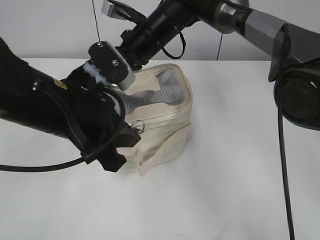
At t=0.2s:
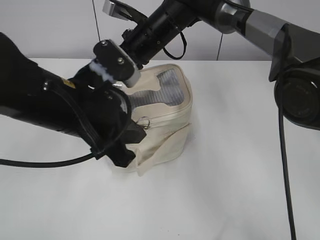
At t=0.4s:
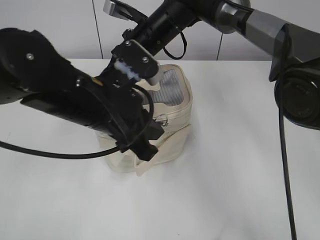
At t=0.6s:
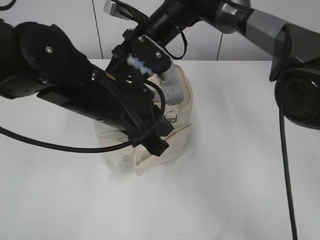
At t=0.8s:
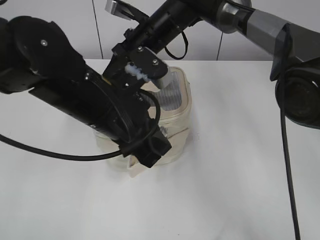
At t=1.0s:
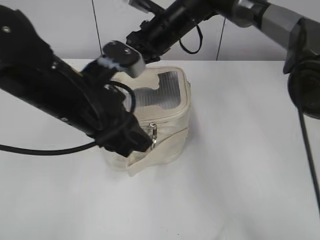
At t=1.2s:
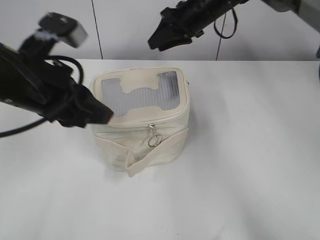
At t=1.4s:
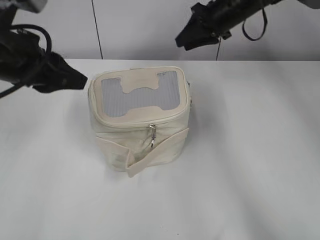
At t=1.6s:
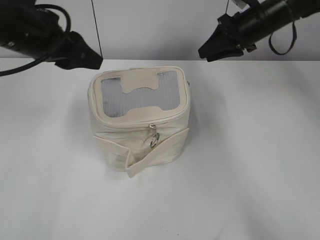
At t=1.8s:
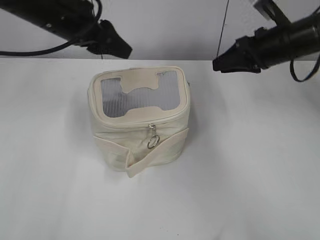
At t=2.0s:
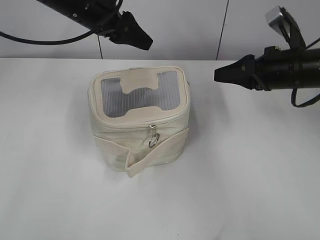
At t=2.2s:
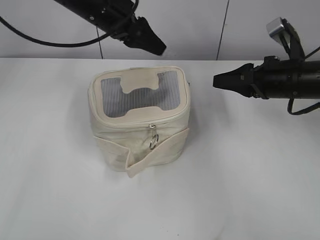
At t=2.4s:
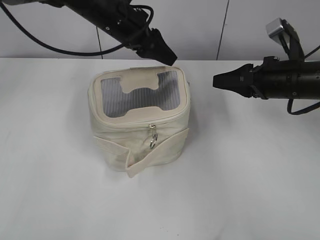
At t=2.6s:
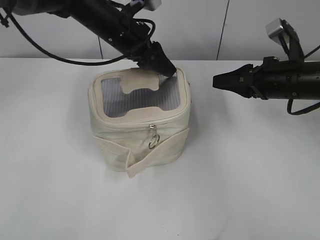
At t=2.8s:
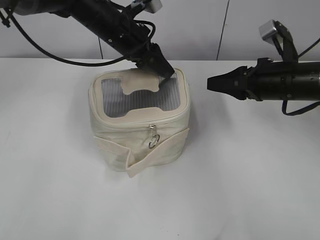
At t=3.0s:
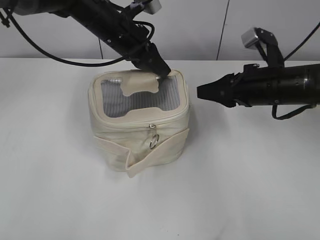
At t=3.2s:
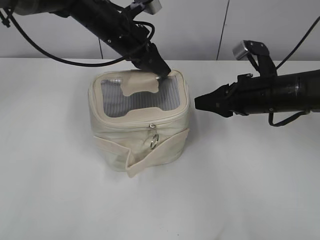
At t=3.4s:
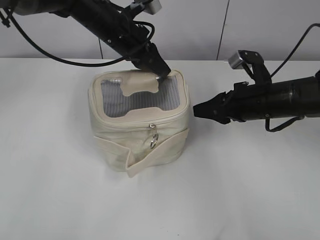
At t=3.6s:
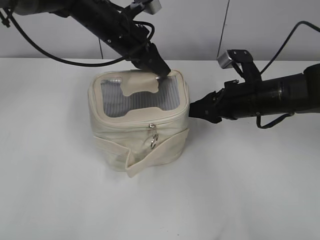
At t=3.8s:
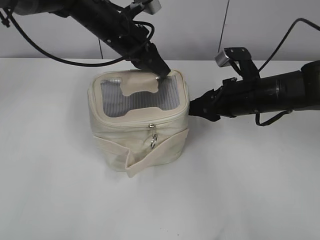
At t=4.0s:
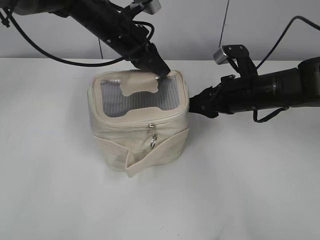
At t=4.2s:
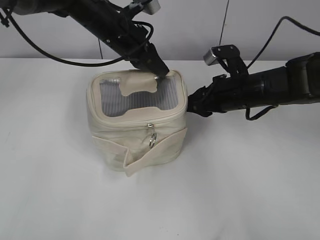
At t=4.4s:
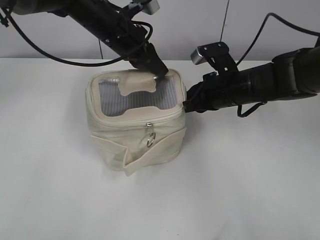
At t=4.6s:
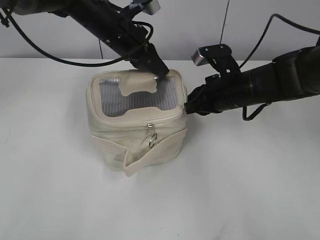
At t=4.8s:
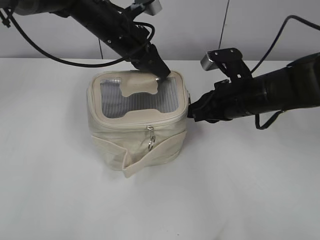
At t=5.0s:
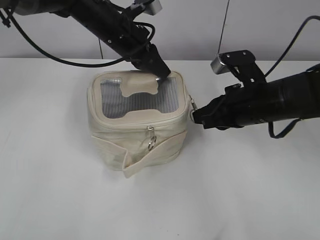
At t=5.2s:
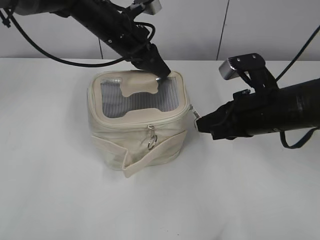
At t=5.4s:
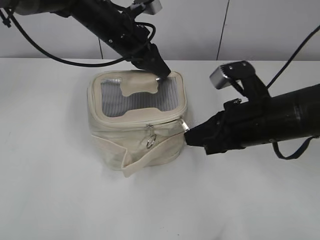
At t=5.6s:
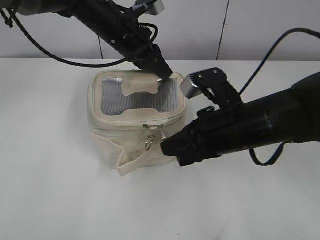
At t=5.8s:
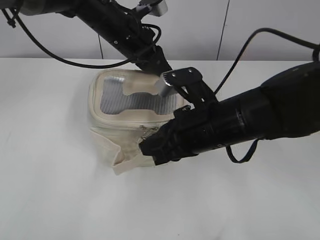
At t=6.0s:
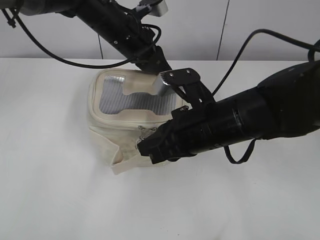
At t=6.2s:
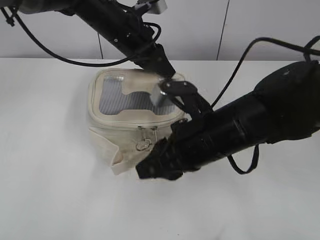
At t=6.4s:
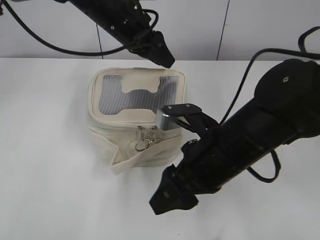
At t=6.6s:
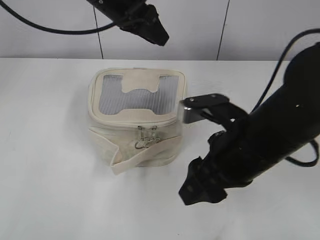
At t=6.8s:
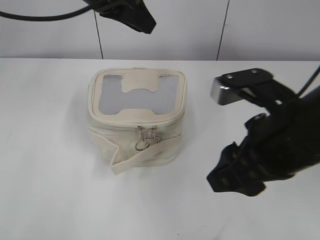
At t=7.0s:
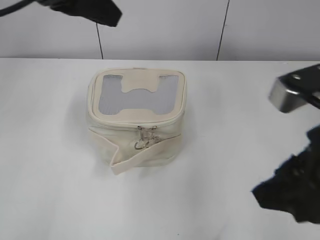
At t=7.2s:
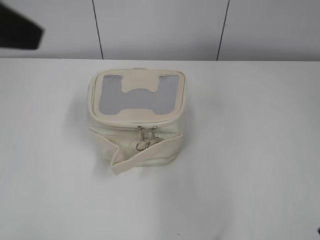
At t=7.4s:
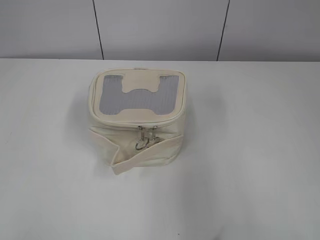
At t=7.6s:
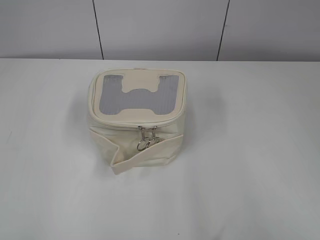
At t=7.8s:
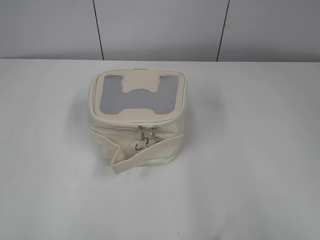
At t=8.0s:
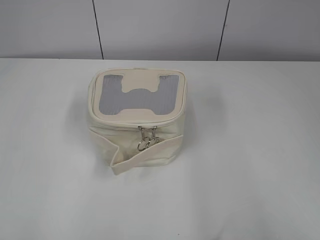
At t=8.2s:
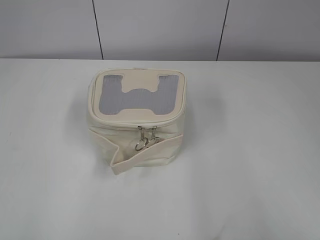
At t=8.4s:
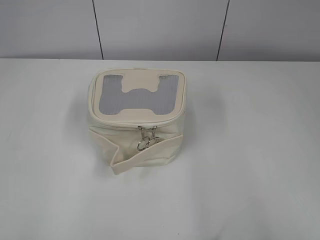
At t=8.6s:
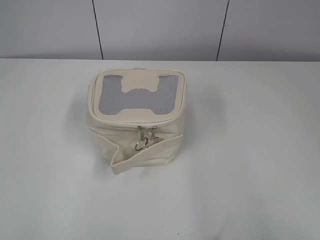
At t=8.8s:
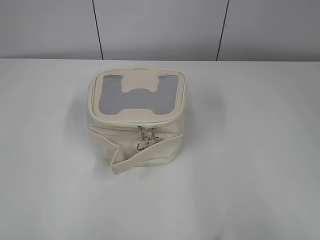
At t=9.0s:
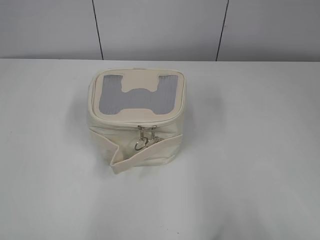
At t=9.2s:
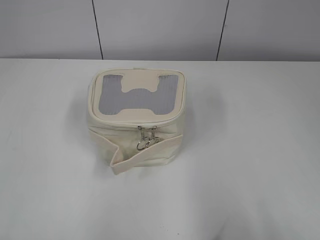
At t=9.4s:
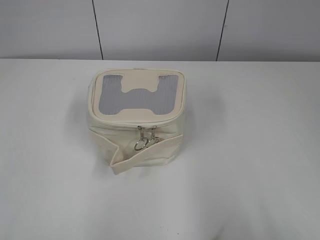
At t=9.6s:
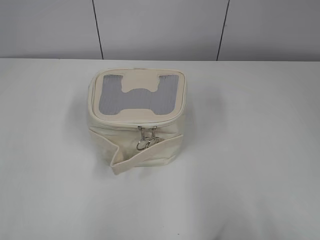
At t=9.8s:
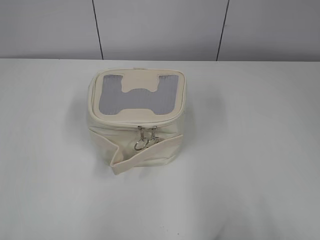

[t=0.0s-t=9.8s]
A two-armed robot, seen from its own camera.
Step, t=1.2s to t=6.0s: Zip up the bag with your right hand.
t=0.0s to t=1.4s: The left gripper goes some 10 cm to the left, and opens up, while the right gripper is displaced to the right and forward by approximately 15 cm, and opens up.
t=1.4s to t=2.8s: The right gripper heads backward and to the right, covering about 20 cm. The left gripper shifts roughly 20 cm forward and to the right.
t=2.8s to t=4.2s: The right gripper is displaced to the left by approximately 5 cm. The left gripper closes its fingers.
t=4.2s to t=5.6s: The right gripper moves backward, roughly 10 cm, and closes.
t=5.6s to t=7.0s: The right gripper moves upward and backward, roughly 10 cm, and opens. The left gripper travels upward, backward and to the left by some 20 cm, and opens.
t=7.0s to t=8.4s: The left gripper shifts approximately 35 cm backward and to the left, while the right gripper travels backward and to the right by approximately 20 cm.

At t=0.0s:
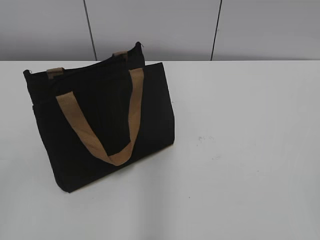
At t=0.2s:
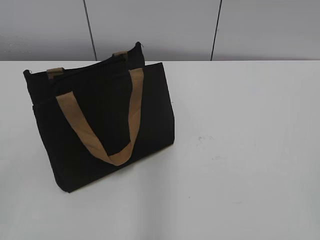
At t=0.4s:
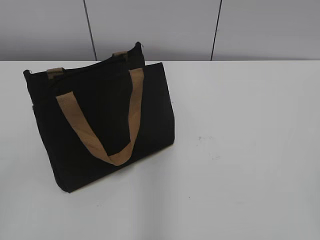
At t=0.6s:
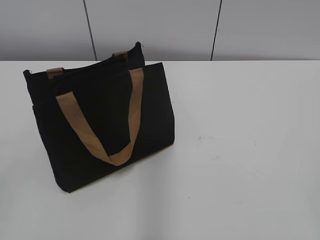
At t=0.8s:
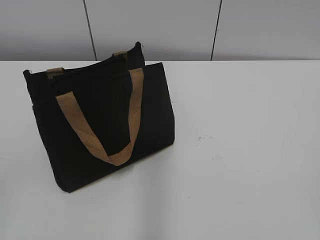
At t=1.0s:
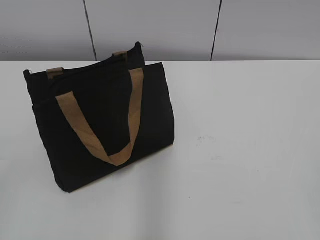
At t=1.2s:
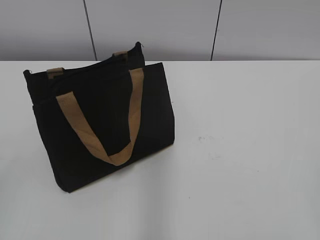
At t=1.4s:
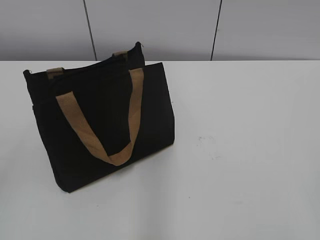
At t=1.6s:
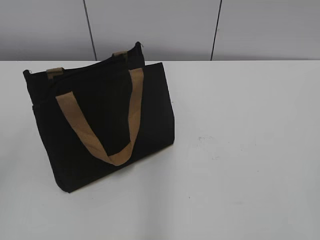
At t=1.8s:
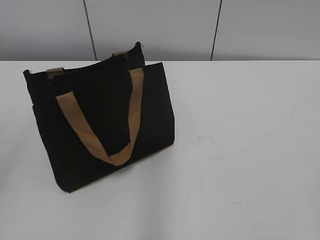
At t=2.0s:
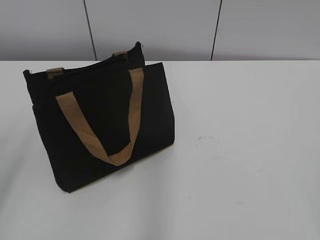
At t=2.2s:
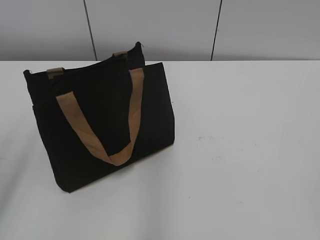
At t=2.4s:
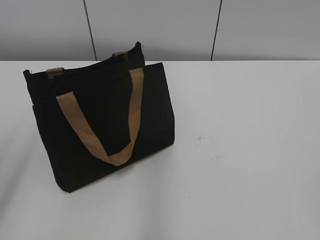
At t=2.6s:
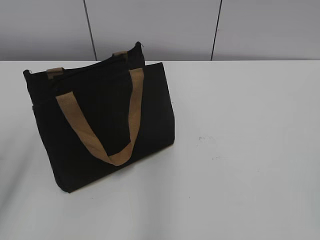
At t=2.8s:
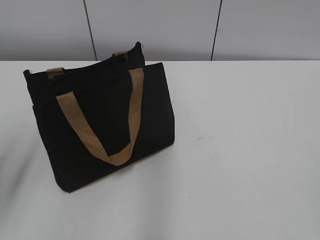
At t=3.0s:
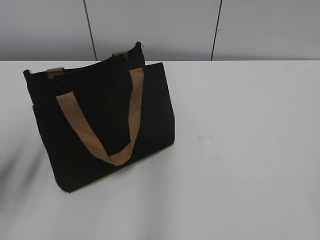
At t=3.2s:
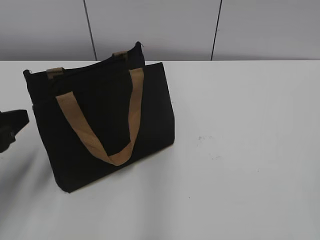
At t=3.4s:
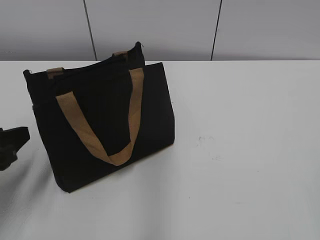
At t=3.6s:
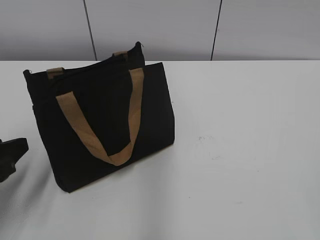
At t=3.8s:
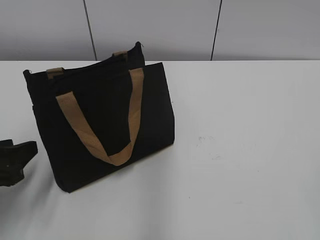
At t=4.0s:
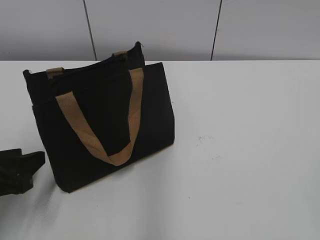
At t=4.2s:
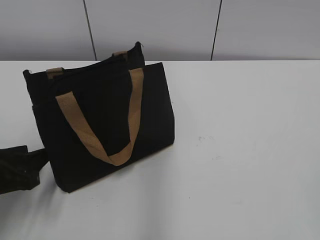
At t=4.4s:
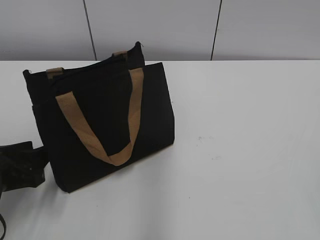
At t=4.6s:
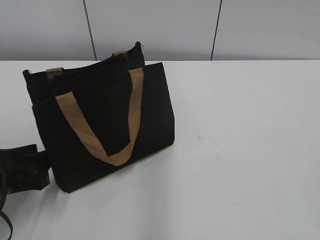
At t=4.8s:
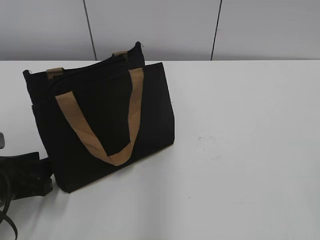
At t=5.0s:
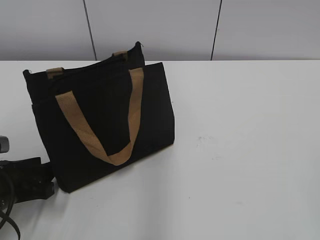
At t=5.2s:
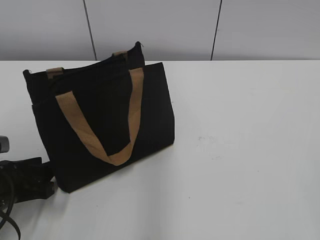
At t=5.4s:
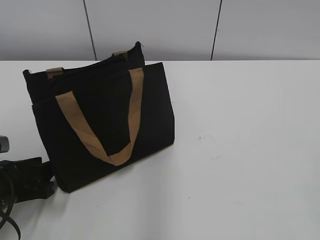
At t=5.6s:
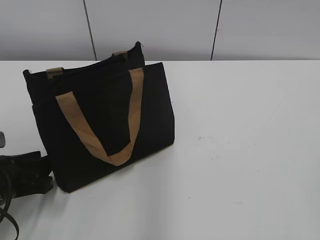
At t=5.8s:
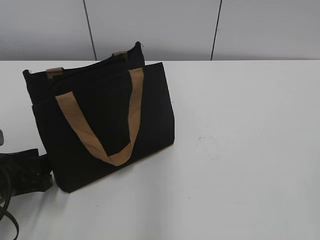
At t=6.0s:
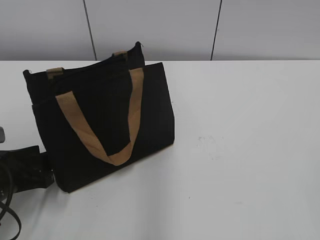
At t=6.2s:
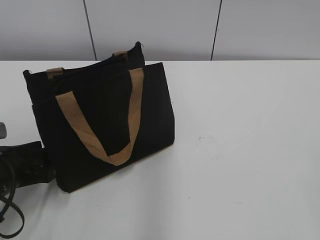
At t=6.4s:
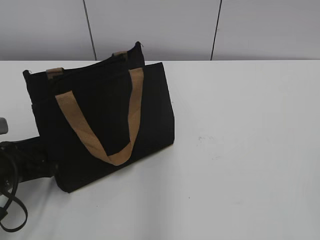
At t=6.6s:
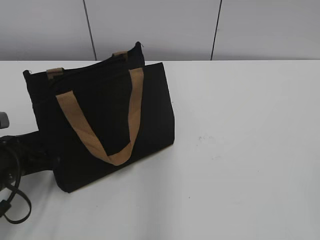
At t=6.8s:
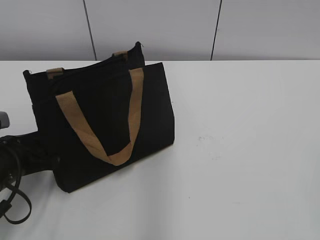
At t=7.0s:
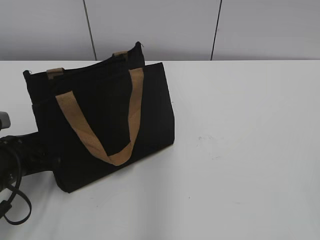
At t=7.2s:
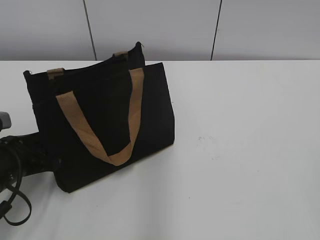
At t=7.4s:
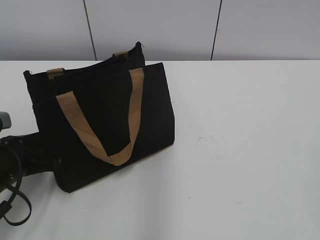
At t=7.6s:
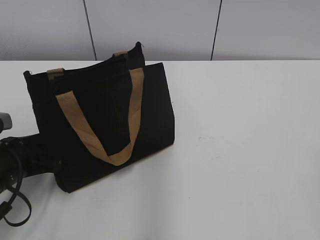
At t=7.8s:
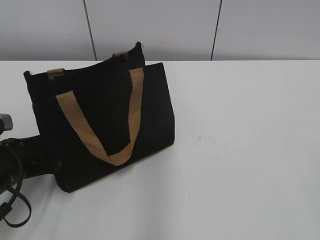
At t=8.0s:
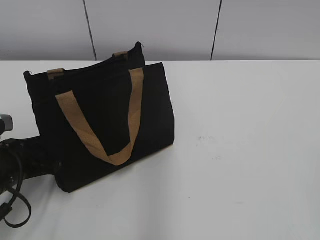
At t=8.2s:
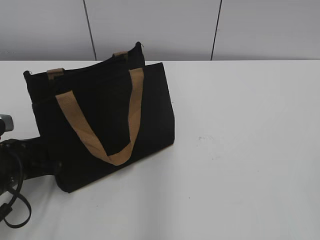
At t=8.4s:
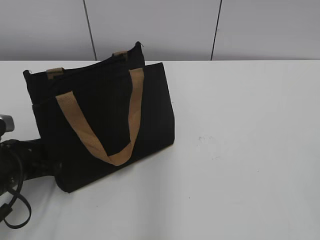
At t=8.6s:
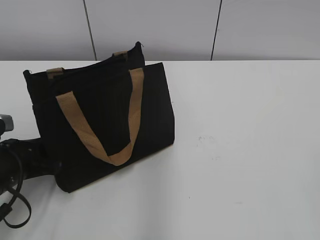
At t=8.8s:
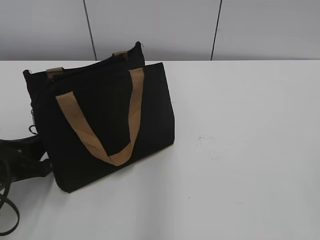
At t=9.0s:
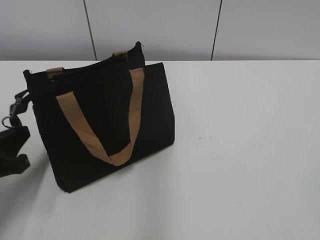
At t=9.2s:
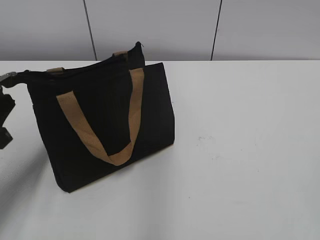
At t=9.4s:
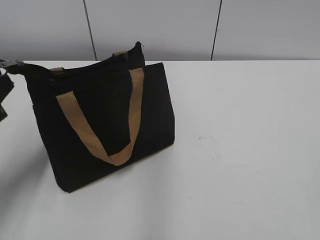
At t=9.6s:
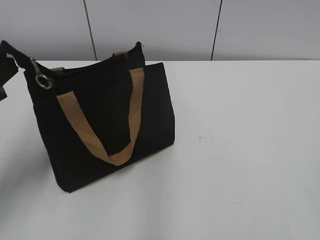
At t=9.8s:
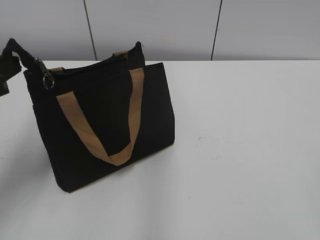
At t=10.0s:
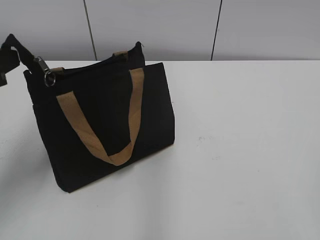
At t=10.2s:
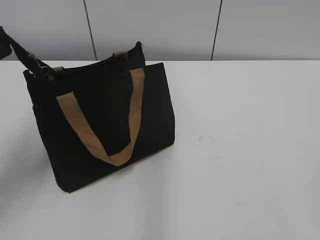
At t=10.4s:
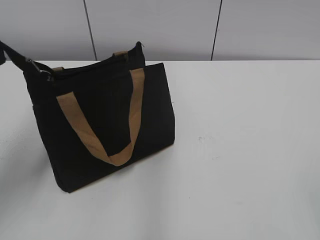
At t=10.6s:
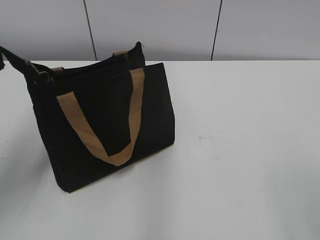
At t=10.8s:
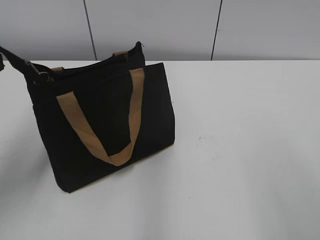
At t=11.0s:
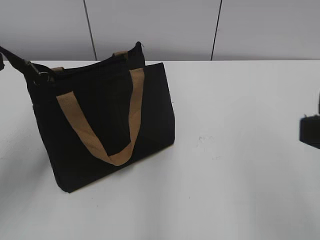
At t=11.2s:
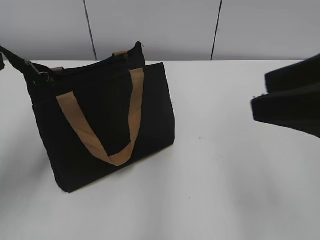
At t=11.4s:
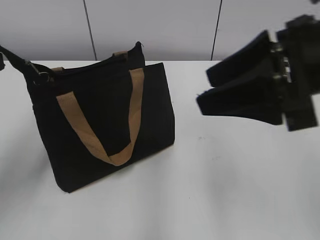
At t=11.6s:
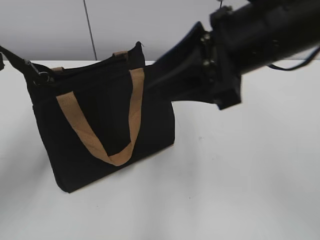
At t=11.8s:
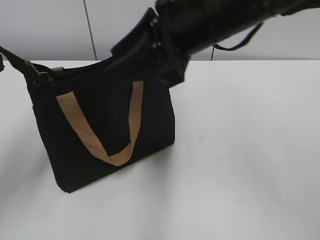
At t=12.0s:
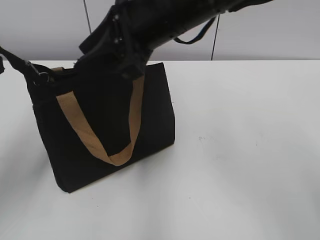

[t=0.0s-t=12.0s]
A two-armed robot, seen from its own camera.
t=1.6s to t=3.0s: The left gripper shifts approximately 15 cm forward and downward.
t=3.0s to t=4.4s: The left gripper shifts approximately 10 cm downward.
t=4.4s to t=7.6s: There are only small adjustments of the grippers.
t=7.6s to t=9.0s: The left gripper closes its fingers.
t=9.0s to t=10.4s: The left gripper heads upward, covering roughly 15 cm.
t=10.4s to t=12.0s: The right gripper shifts some 40 cm forward and to the left.
